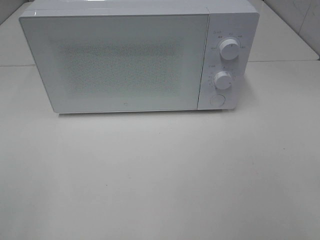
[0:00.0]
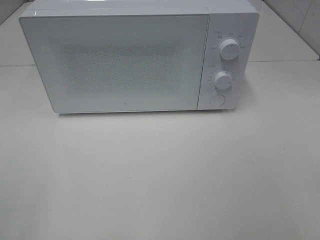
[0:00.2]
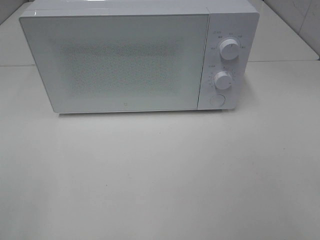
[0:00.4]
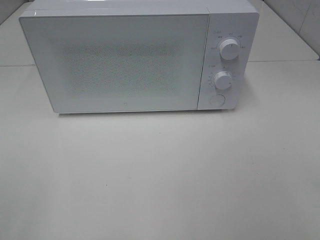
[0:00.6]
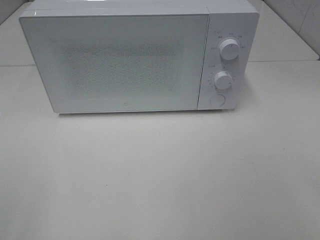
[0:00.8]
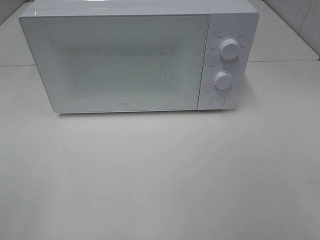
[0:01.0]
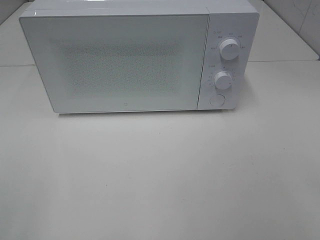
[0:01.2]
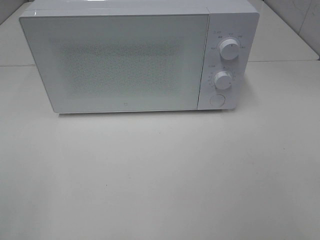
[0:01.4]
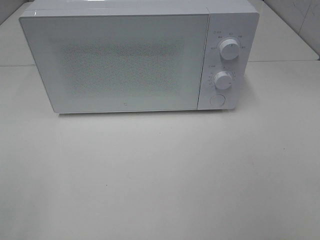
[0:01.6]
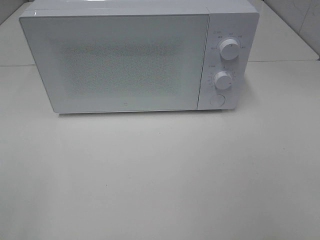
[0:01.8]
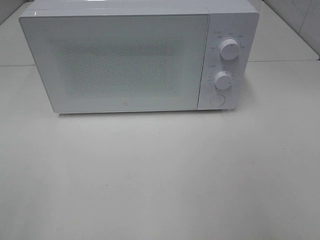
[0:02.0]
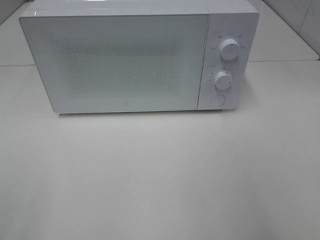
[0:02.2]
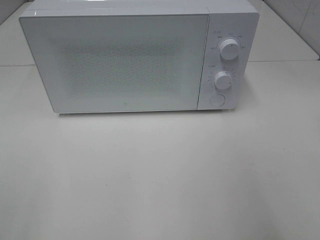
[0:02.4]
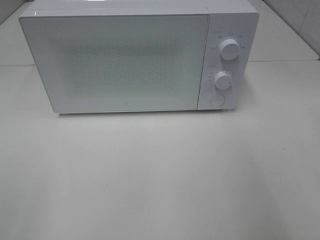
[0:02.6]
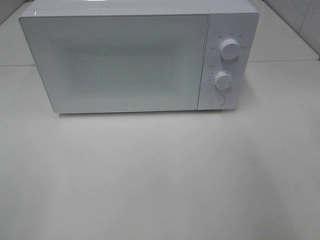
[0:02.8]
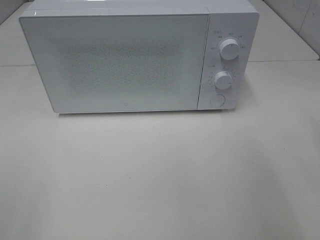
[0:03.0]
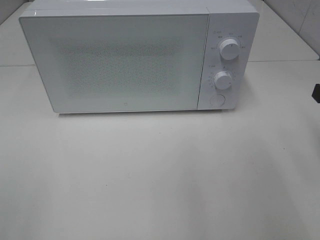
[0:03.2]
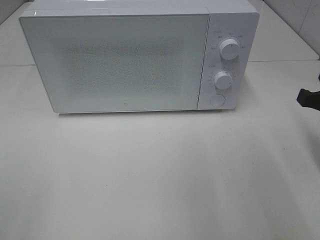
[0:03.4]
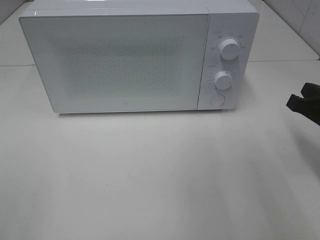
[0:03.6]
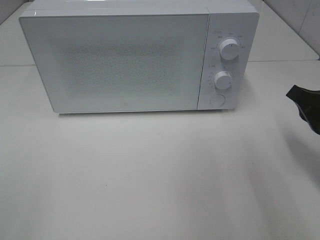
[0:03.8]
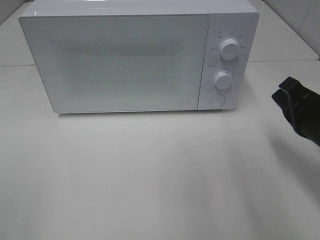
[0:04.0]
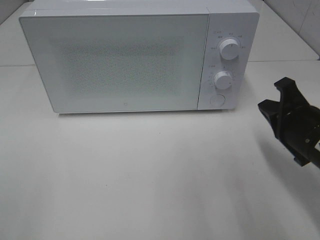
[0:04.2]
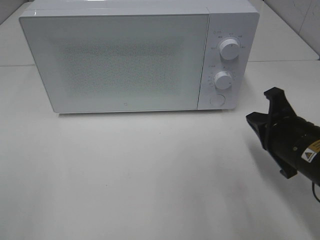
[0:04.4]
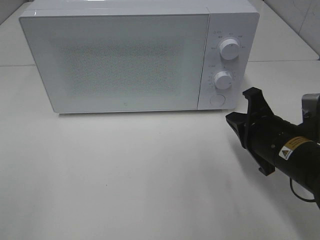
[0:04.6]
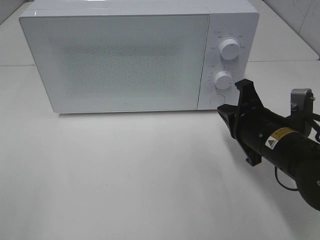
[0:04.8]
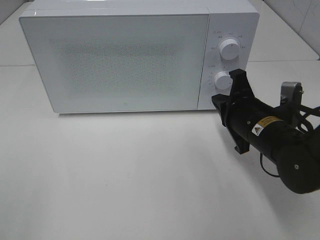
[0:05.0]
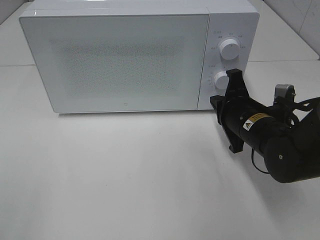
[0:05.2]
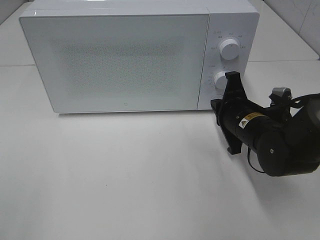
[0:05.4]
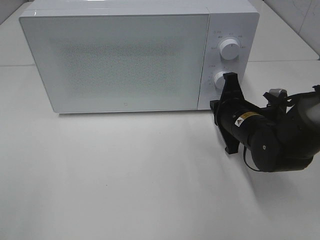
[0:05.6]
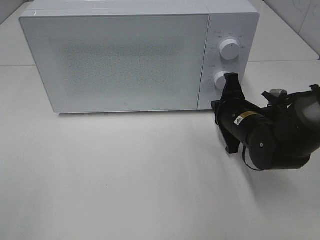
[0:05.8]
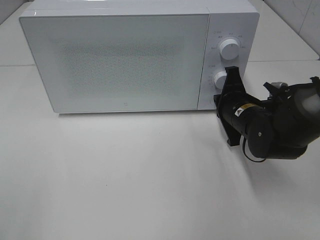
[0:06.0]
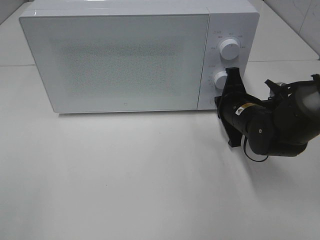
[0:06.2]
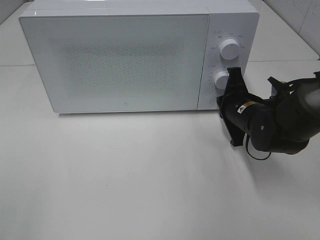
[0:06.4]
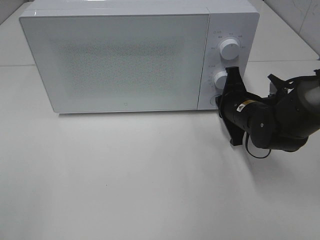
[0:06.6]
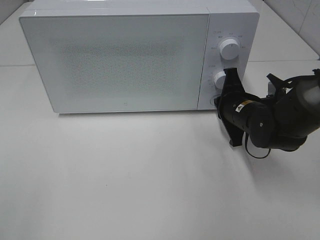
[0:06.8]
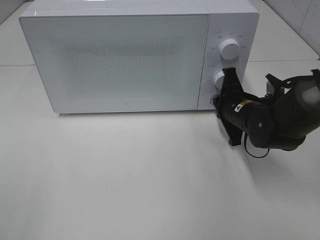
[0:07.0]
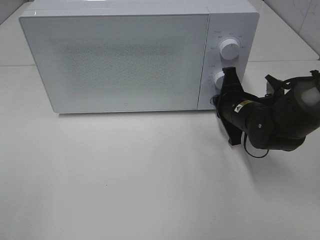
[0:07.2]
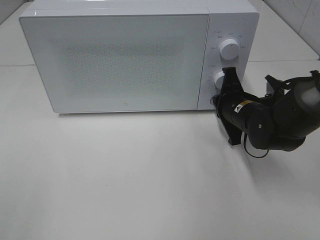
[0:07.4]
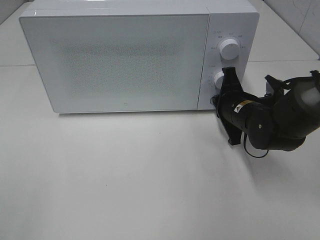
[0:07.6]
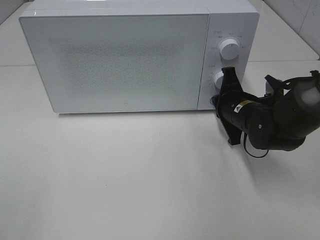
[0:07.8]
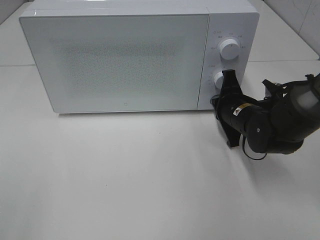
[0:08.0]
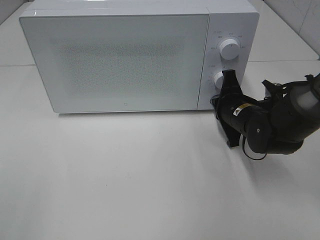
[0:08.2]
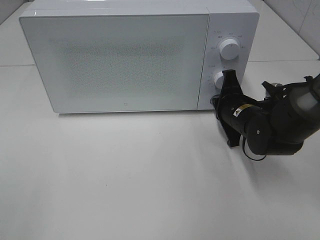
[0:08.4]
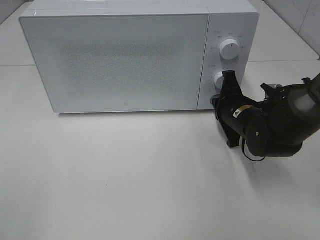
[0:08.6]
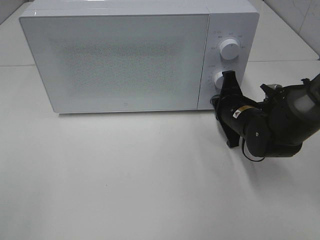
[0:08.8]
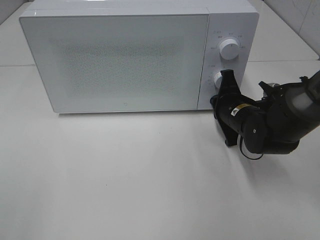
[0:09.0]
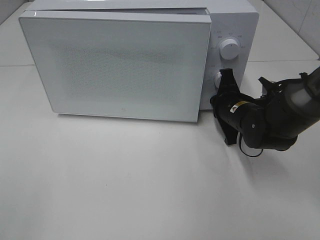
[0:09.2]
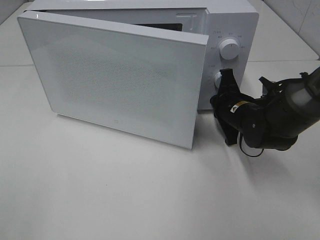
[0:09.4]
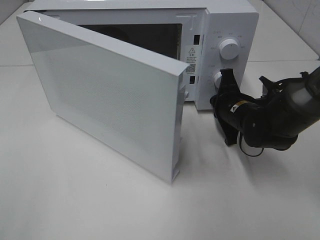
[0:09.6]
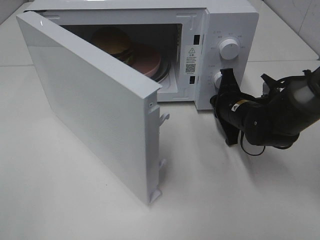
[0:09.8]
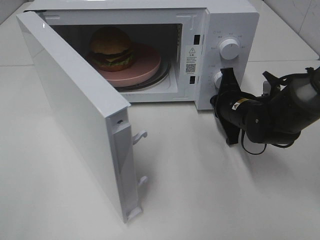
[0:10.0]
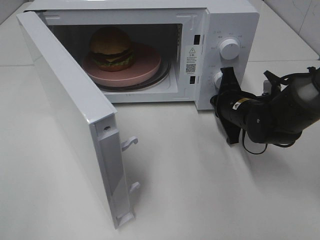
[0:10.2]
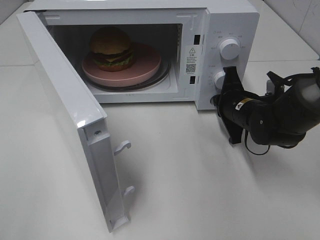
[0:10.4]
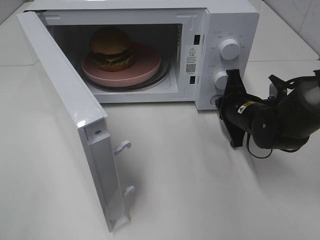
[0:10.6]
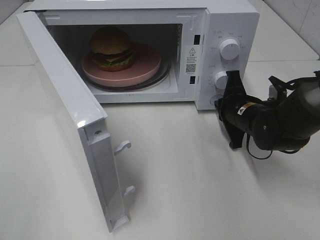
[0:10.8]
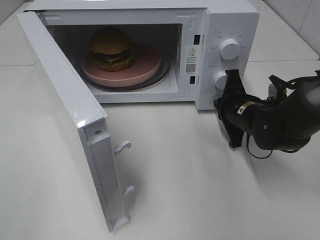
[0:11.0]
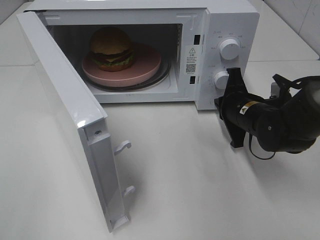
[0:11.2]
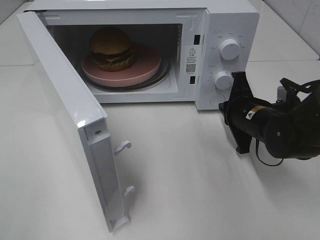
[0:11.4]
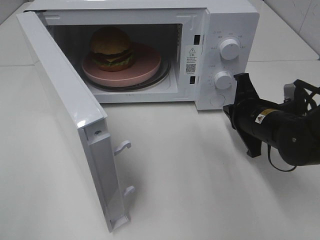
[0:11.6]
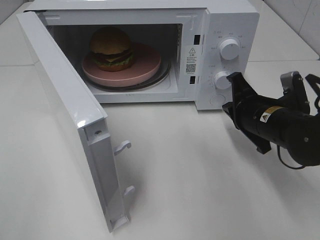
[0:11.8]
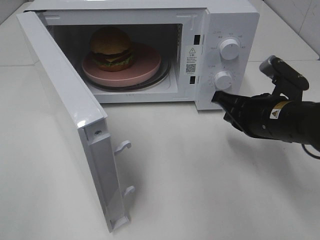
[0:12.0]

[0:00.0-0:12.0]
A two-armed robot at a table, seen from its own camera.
Task of the whole recording: Heat the burger.
Step, 0:00.0 to 0:11.8: Right hand: press the switch.
0:03.0 to 0:04.4: The right gripper moves downward and to the left, roughly 15 cm.
0:04.4 to 0:06.0: The right gripper is displaced forward by roughly 10 cm.
0:06.0 to 0:07.6: There are only small adjustments of the grippers.
0:07.6 to 0:09.0: The two grippers keep their place.
0:10.4 to 0:12.0: The right gripper travels backward and upward by about 10 cm.

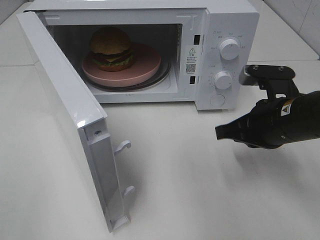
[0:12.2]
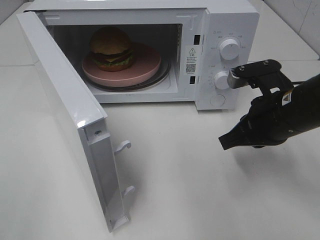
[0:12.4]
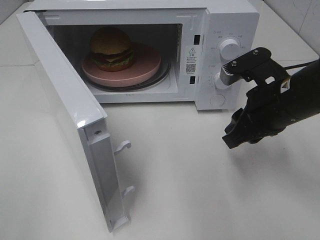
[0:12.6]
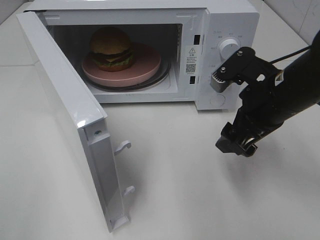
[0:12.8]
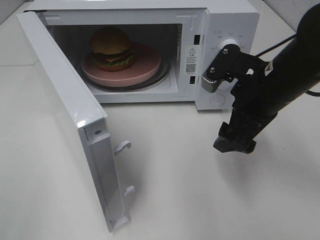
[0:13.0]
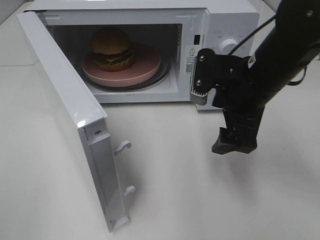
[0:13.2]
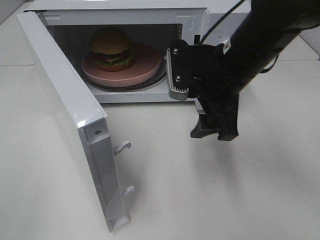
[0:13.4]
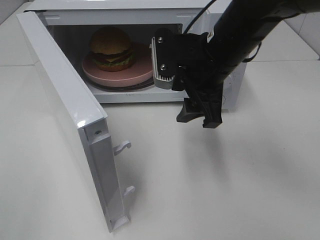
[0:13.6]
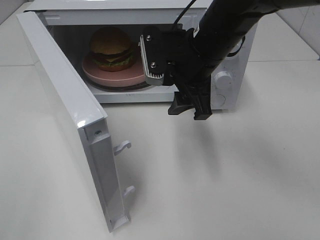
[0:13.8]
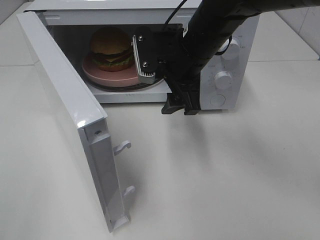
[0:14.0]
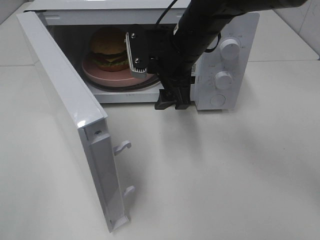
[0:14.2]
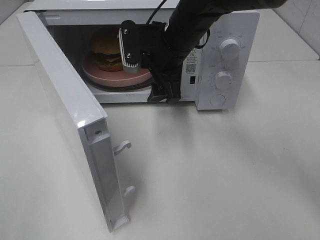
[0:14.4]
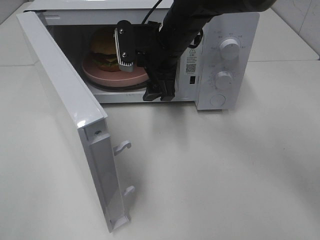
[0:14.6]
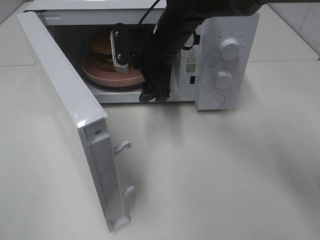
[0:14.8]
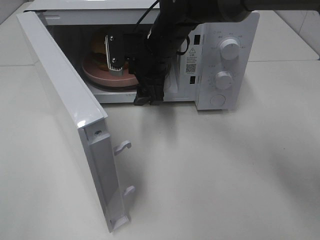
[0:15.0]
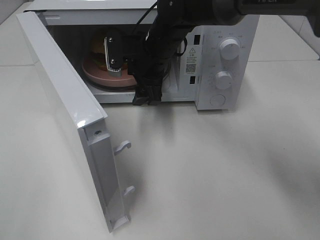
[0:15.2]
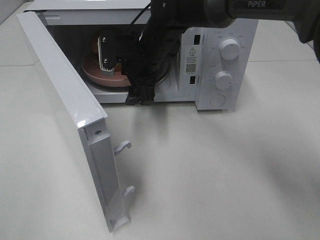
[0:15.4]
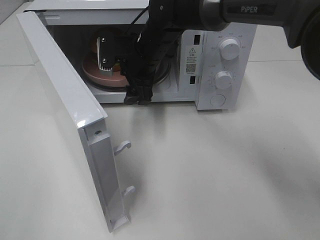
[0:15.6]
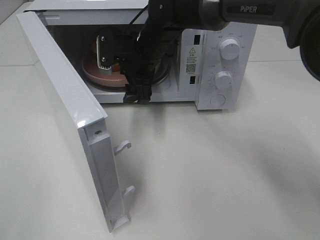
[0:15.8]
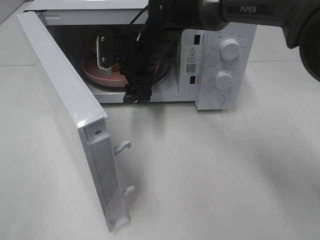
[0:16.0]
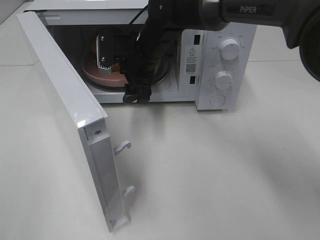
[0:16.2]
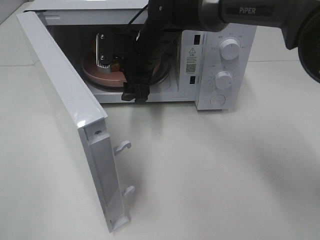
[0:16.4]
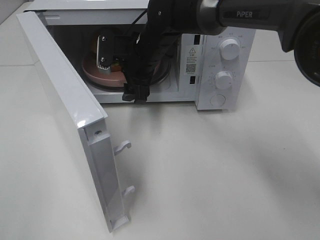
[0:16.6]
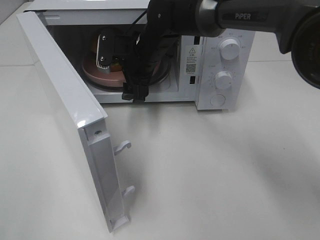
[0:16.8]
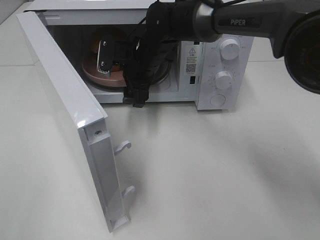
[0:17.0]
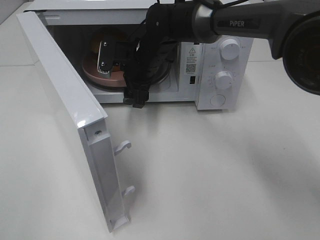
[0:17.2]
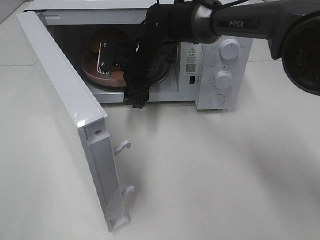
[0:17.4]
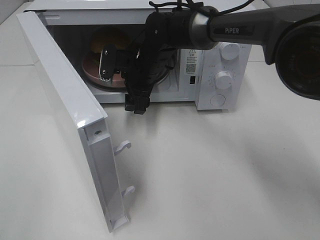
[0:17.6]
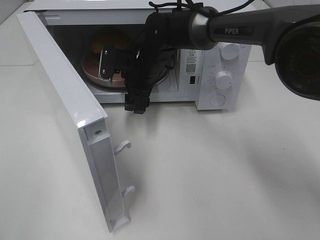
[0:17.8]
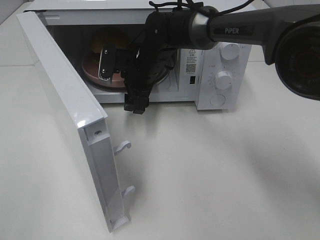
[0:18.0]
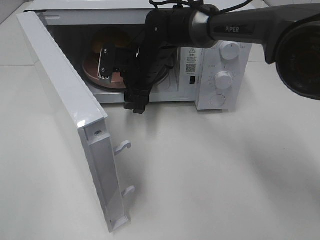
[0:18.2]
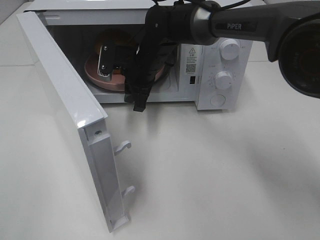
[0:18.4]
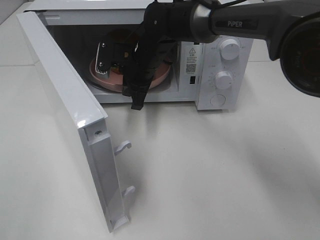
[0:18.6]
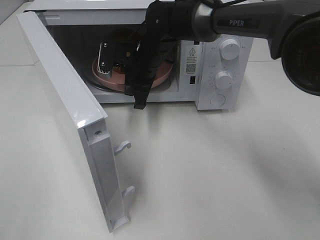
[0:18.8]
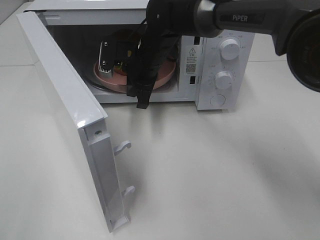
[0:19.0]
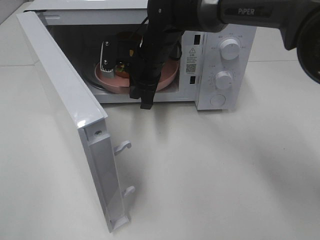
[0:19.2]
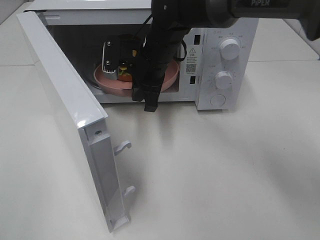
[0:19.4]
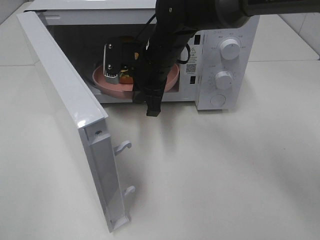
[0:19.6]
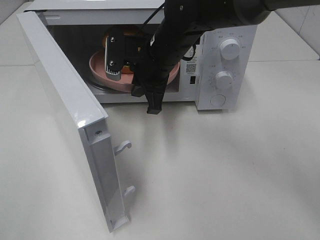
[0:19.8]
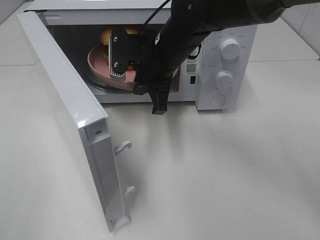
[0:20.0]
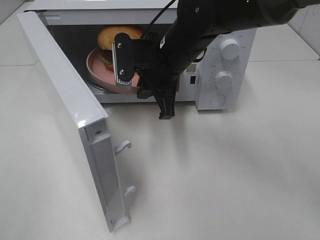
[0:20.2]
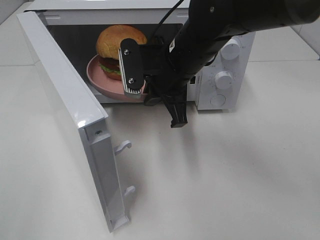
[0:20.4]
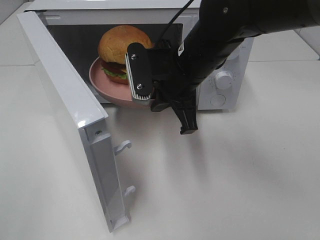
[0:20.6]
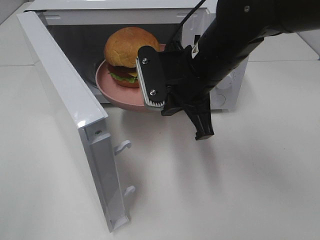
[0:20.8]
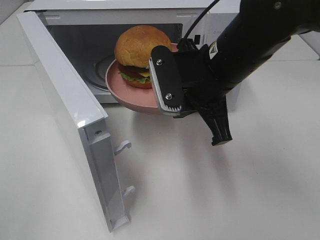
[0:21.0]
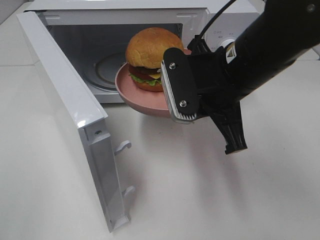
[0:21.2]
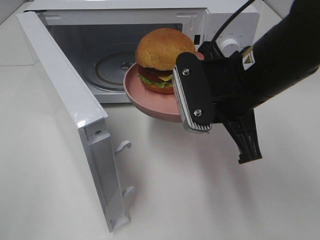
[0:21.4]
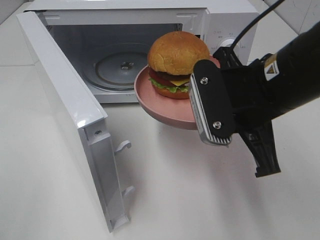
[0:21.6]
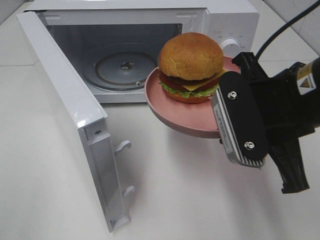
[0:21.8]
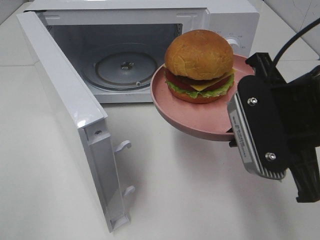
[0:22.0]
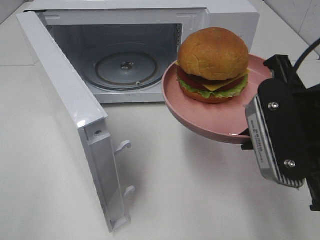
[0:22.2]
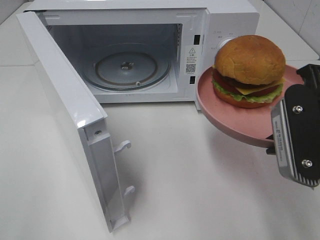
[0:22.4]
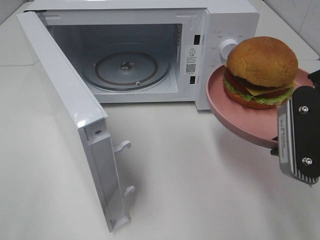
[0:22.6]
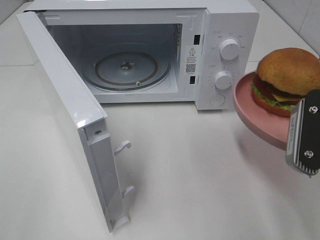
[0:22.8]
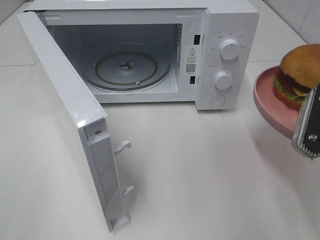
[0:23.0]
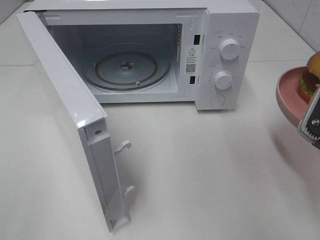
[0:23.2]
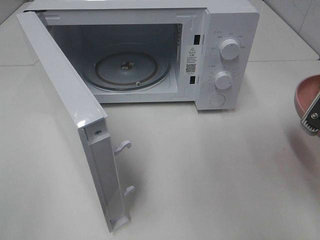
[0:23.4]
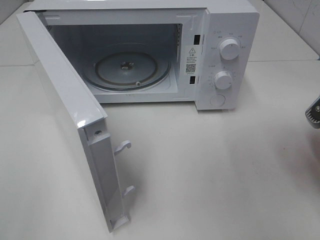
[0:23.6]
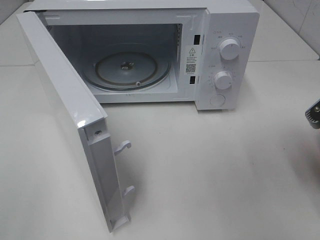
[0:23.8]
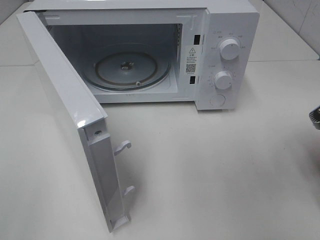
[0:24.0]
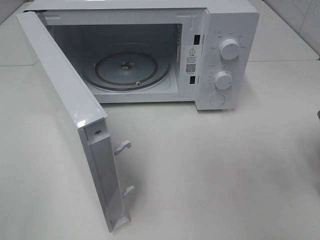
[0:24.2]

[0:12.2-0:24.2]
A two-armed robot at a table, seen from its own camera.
Task of the whole recording: Heat the burger.
Step, 0:12.2 to 0:18.8: Right hand: grab the plate with the hamburger.
0:12.2 to 0:13.8: The right gripper moves to the left, forward and upward, approximately 15 cm, and opens its fingers.
0:13.8 to 0:15.2: The right gripper moves forward and to the left, some 10 cm.
0:15.2 to 0:18.2: The grippers make only small movements.
0:18.2 to 0:19.8: The right gripper travels backward and upward by some 10 cm, and closes its fingers.
0:19.8 to 0:21.2: The right gripper is displaced backward and to the right by some 15 cm.
0:21.2 to 0:22.6: The right gripper moves to the right and backward, roughly 15 cm.
0:22.6 to 0:24.2: The right gripper moves to the right, downward and forward, some 15 cm.
